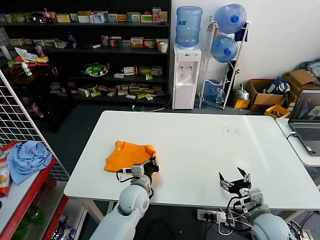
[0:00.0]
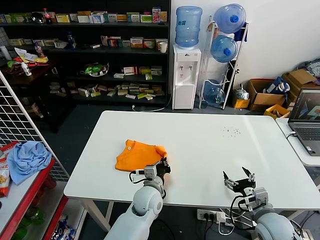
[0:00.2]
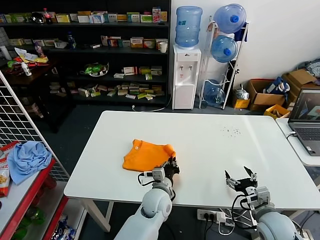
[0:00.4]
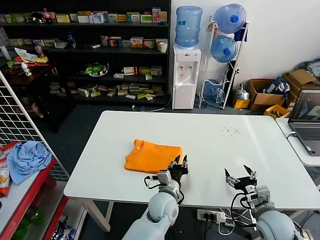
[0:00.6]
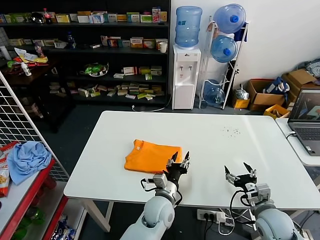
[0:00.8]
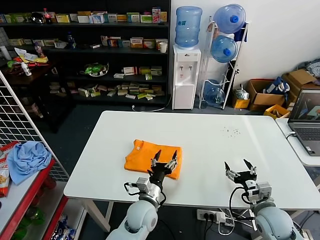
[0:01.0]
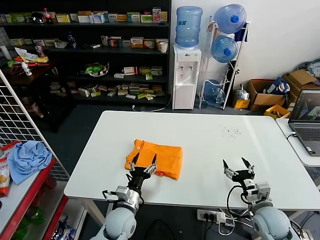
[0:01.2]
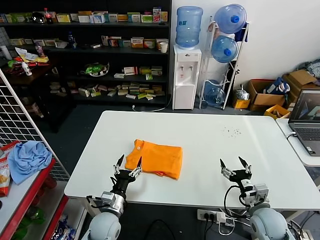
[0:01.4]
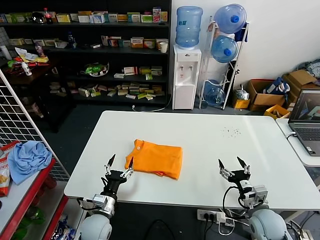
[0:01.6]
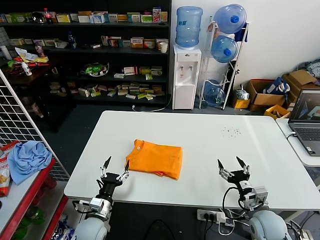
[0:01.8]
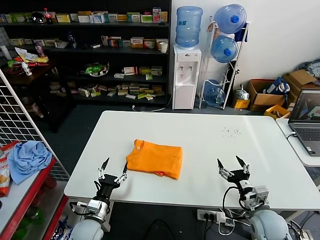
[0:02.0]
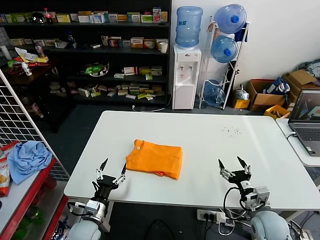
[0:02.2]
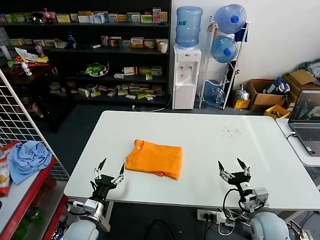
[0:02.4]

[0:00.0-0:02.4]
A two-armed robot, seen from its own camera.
Task of the whole recording: fold and organize the clothes.
0:00.0 to 0:01.2: The left gripper goes roughly 5 cm backward, travels to the right and back again, approximately 10 cm each way, and opens.
0:01.2 to 0:02.4: The left gripper travels to the left by some 15 cm.

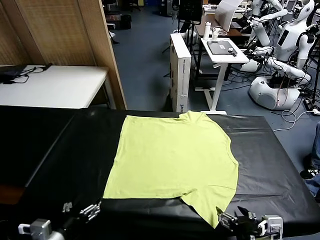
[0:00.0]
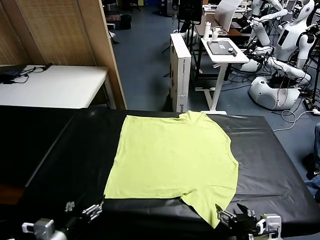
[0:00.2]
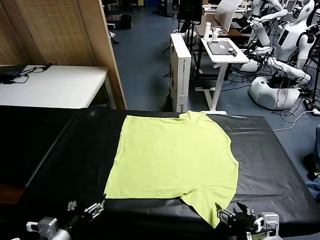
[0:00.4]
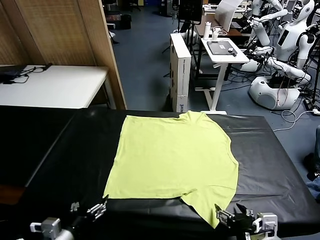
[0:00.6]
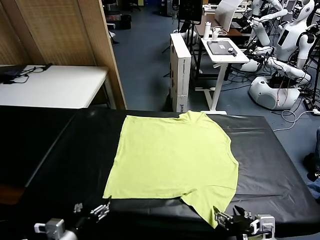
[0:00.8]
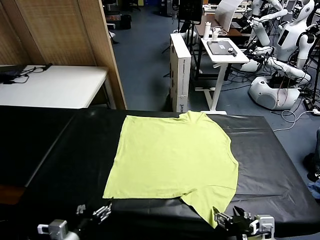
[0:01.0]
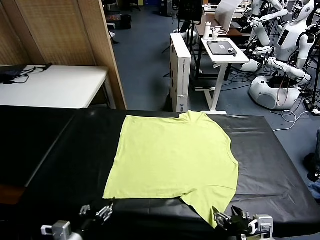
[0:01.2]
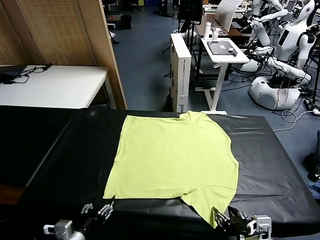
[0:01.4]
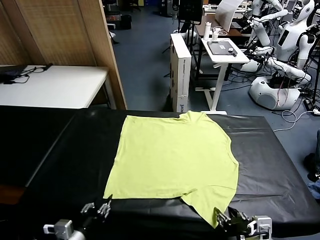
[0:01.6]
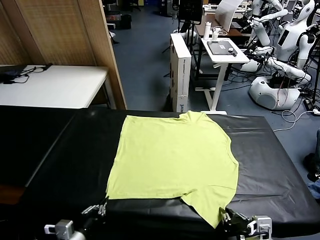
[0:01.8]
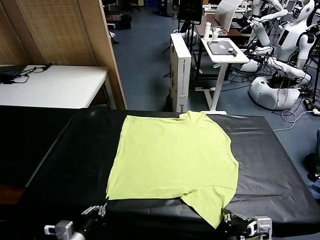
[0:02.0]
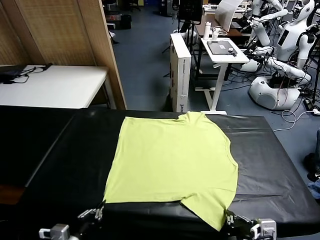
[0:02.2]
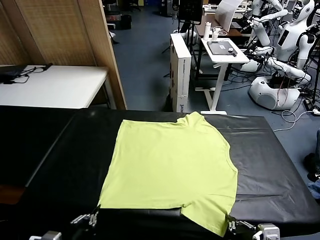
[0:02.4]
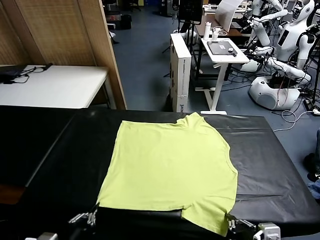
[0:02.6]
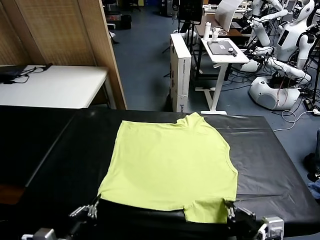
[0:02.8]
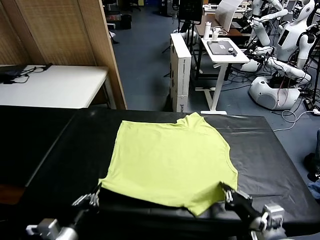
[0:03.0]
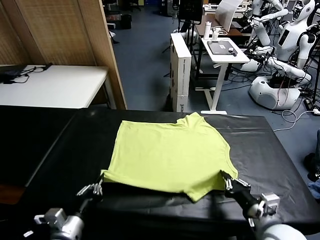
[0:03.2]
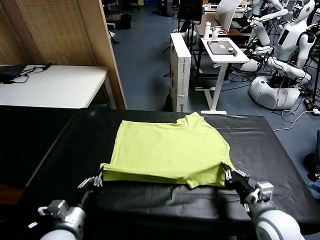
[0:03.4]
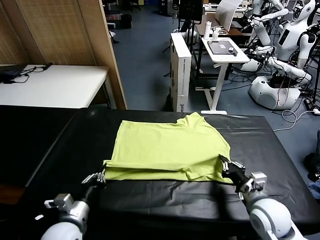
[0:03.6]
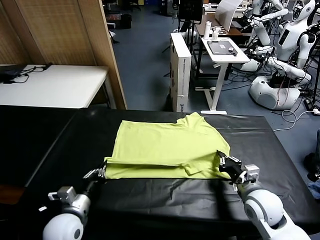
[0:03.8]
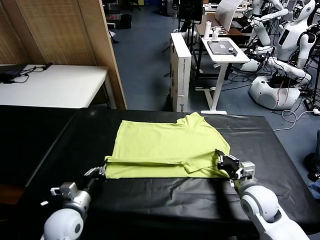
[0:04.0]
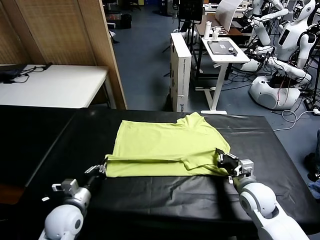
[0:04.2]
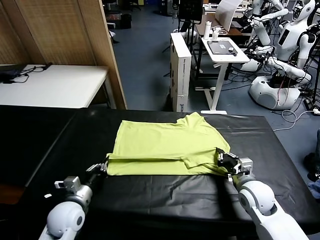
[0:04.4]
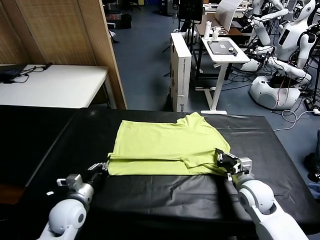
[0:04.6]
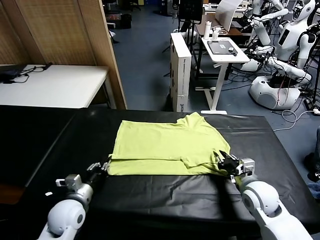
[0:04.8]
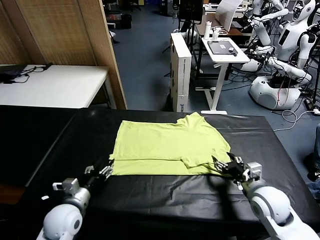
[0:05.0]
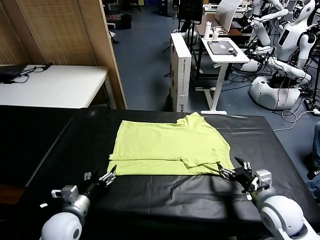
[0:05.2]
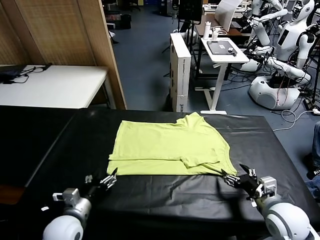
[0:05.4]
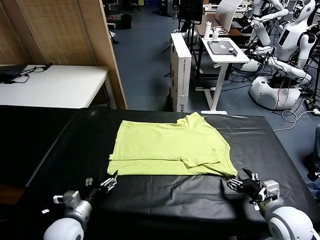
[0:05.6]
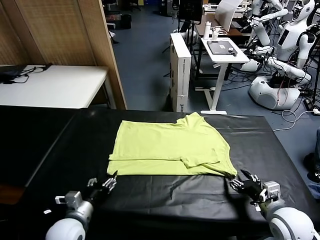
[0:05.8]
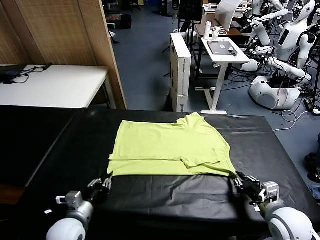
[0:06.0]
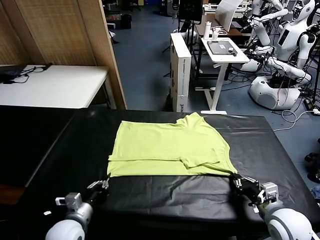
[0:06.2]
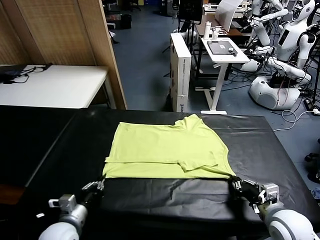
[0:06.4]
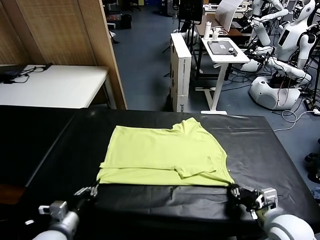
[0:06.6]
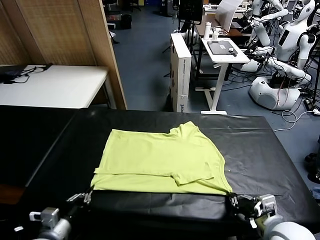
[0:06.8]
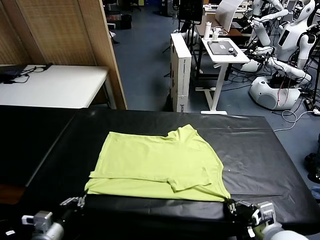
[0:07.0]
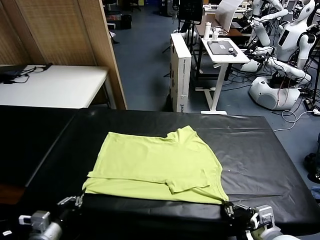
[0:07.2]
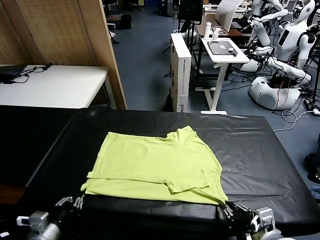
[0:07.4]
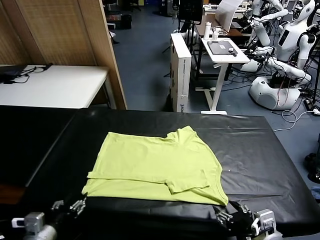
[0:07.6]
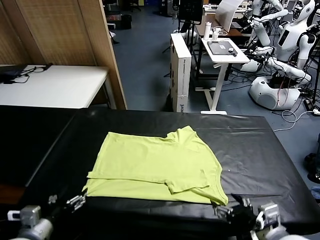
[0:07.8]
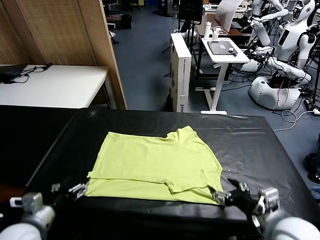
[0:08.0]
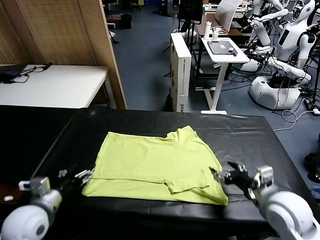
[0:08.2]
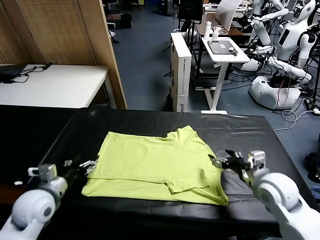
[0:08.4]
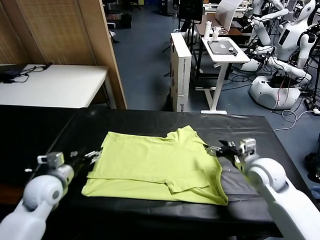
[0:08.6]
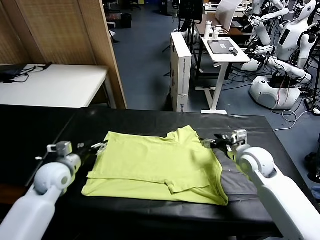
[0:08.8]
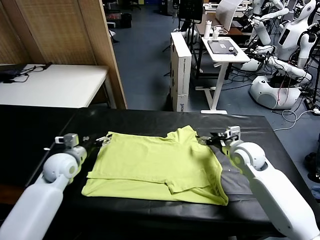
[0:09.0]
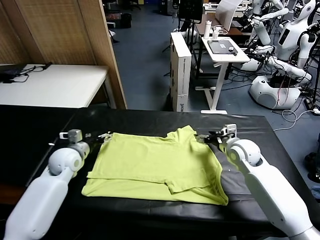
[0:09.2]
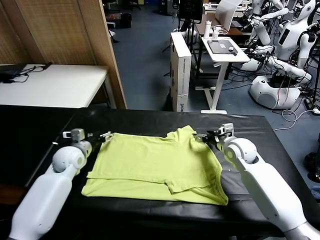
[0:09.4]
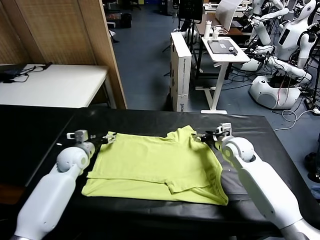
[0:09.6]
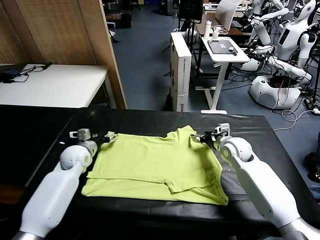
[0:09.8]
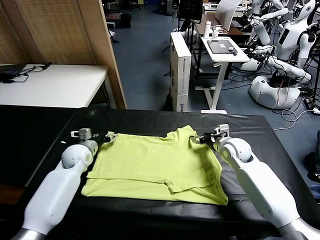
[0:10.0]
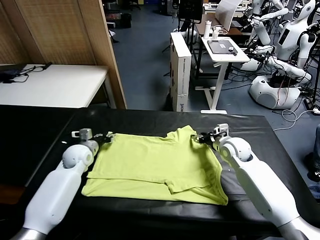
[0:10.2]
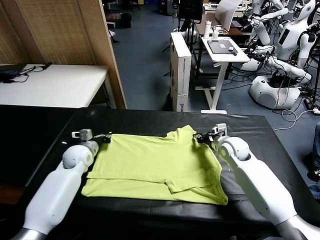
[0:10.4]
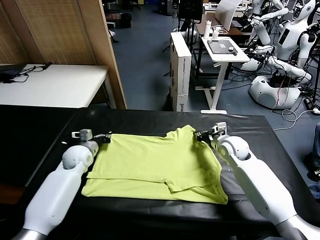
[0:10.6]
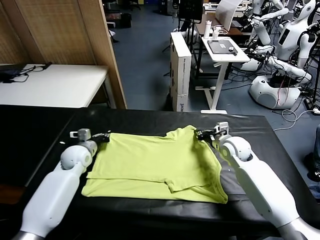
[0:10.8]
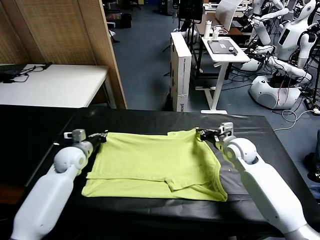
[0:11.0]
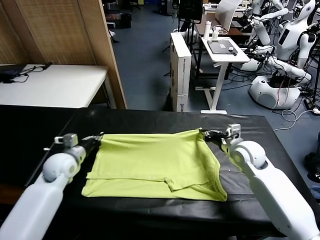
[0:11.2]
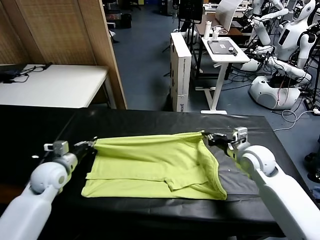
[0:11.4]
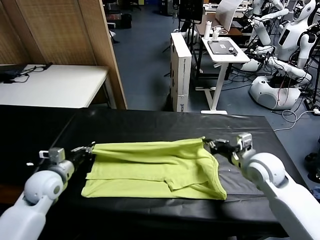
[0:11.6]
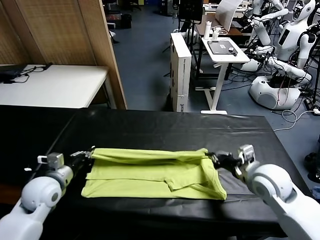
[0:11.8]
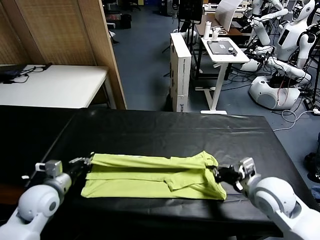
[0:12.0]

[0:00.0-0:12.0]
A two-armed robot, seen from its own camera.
Task of the whole recording: fold and organize the clothes.
Step, 0:00.0 to 0:02.2: use both grippers simultaneously to clamp the lower edge of the clothing fabric.
Step, 0:02.4 to 0:05.0: use both grippers to drag the lower edge of the fabric forward and fold it over the upper edge.
Step, 0:05.2 to 0:07.6: Drag the clothes downward with both gripper.
Step, 0:07.8 to 0:10.6: use both grippers simultaneously to clamp the upper edge of the clothing fabric.
0:01.6 to 0:03.0: The right gripper shifts about 10 cm forward.
0:03.0 to 0:04.4: The two grippers go approximately 10 cm forward.
0:04.4 to 0:06.0: The right gripper is displaced backward by about 10 cm, and opens and closes again. Meanwhile the left gripper moves backward, approximately 5 cm, and opens, then closes again.
0:06.0 to 0:07.6: The grippers both shift upward, to the left and backward by about 10 cm. The right gripper opens up. The left gripper opens up.
0:07.6 to 0:09.0: Both grippers travel together forward, roughly 30 cm.
0:09.0 to 0:10.4: The right gripper closes up. Meanwhile the left gripper moves some 5 cm, and closes up.
0:10.4 to 0:12.0: Both grippers move backward, approximately 20 cm.

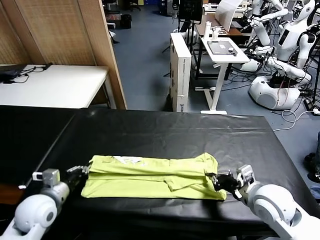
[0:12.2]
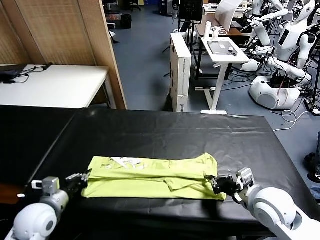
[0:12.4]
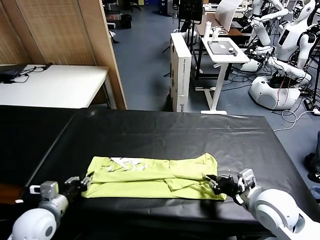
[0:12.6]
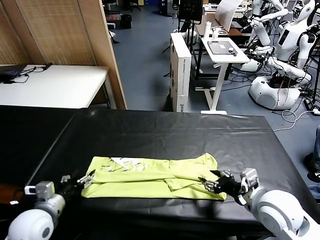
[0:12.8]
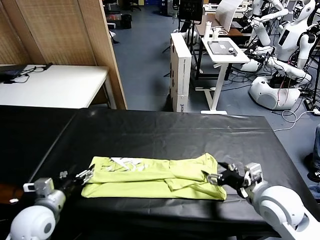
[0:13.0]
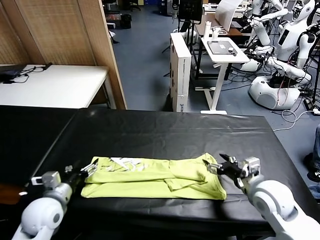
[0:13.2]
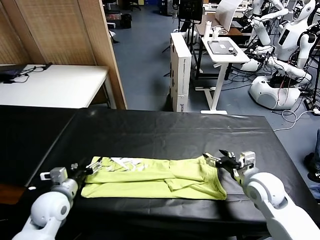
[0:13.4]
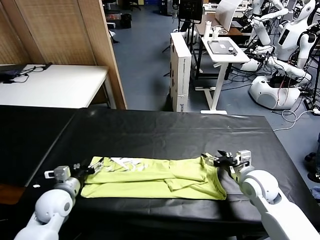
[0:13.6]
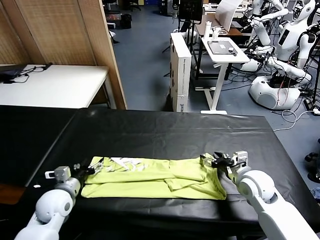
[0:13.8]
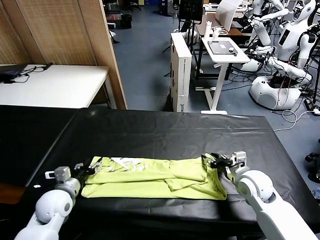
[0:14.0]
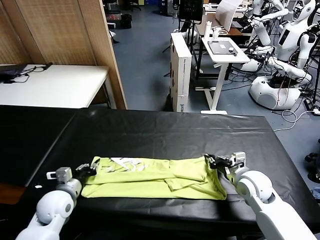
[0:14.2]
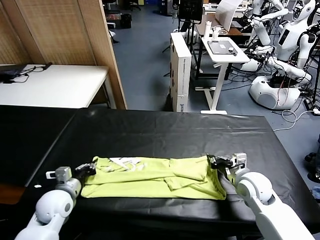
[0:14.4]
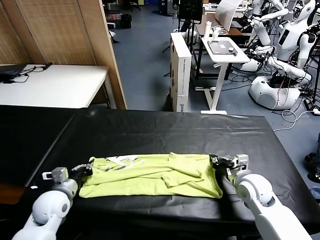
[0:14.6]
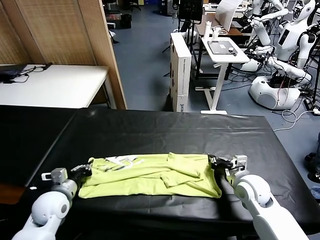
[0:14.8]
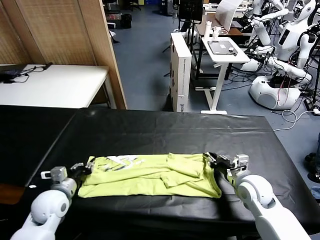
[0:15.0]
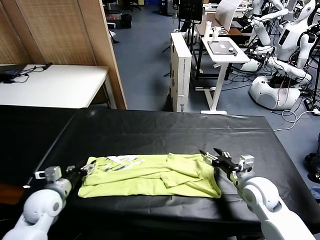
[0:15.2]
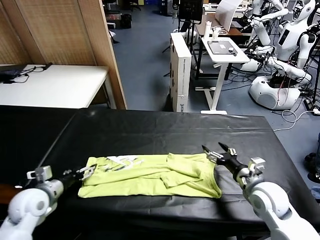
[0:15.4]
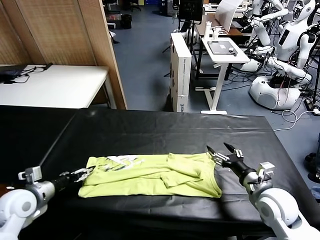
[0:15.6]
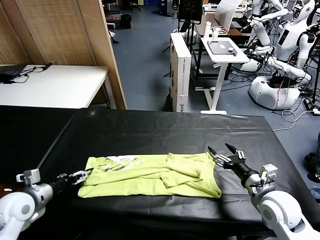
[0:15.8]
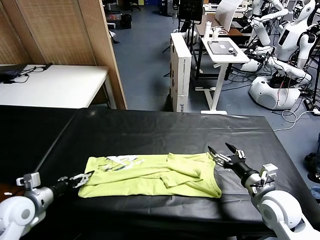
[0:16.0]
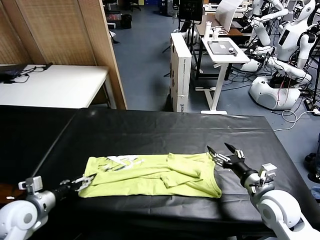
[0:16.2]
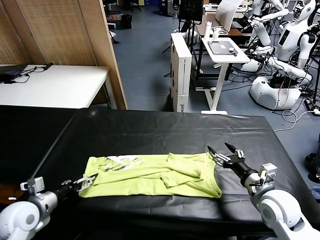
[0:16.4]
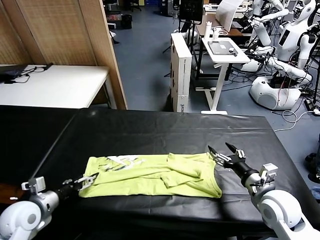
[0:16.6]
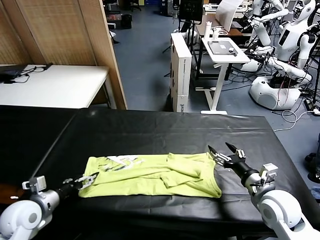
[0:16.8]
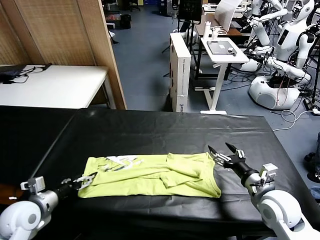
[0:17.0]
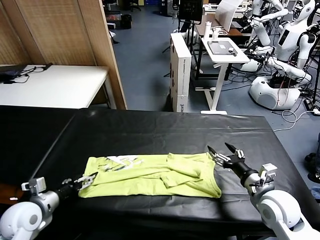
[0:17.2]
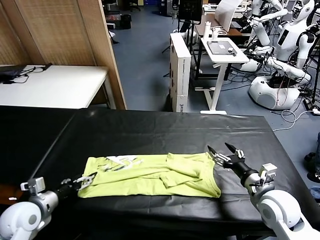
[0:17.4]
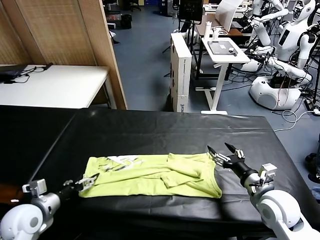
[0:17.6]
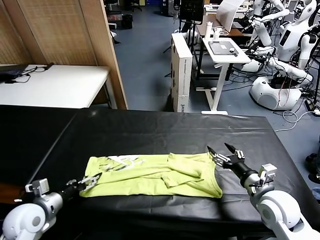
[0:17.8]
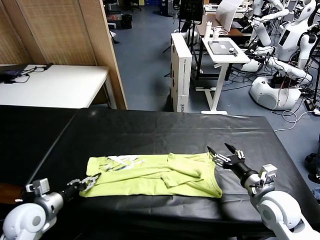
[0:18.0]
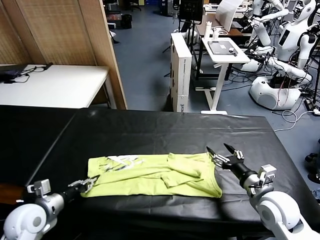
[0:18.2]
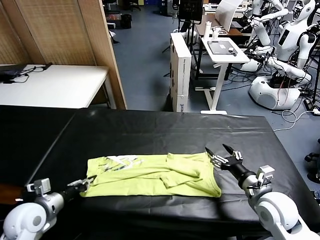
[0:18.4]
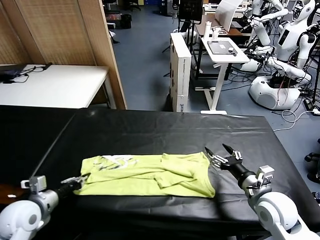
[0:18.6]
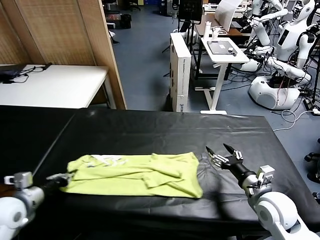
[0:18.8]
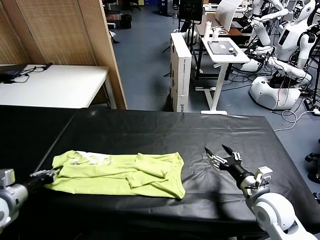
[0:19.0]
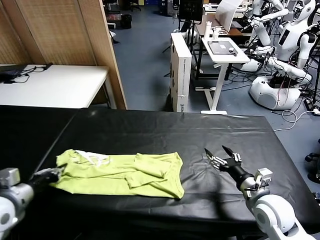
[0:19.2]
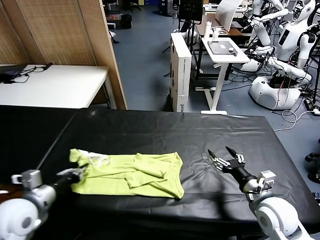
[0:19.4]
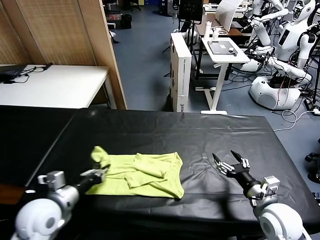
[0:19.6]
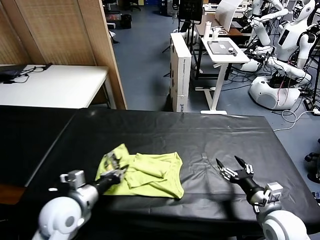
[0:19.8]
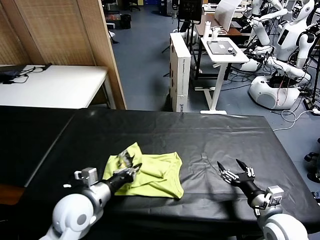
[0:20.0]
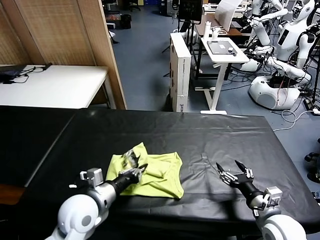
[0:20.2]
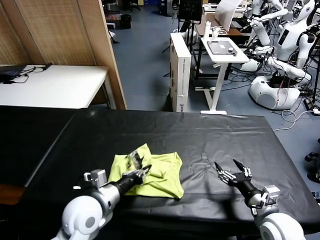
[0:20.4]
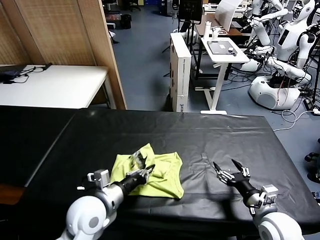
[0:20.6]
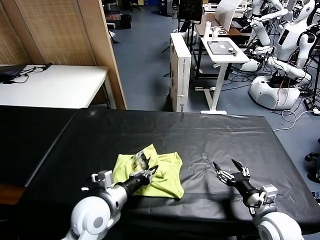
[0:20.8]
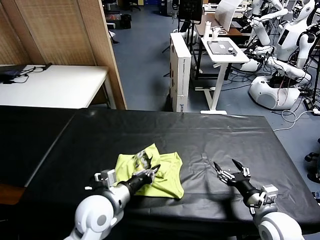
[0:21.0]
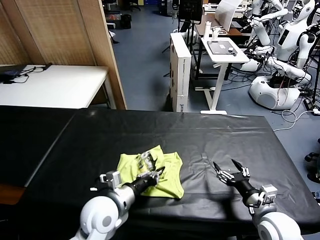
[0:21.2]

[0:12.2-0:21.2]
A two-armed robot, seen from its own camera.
Task of the whole recording: fold and organize the clothes.
Step, 0:13.0 to 0:18.4: use the left gripper to clamp the left edge of the fabric.
0:12.2 to 0:13.8: The left gripper travels forward by roughly 5 cm, and opens; the right gripper is displaced forward and downward by approximately 10 cm, and opens.
0:13.8 to 0:15.2: The right gripper moves backward, some 5 cm, and opens its fingers, while the left gripper goes approximately 5 cm to the left, and closes and opens again.
0:15.2 to 0:16.6: The grippers make only small movements.
0:16.6 to 0:18.2: The left gripper closes its fingers.
0:18.2 to 0:19.8: The right gripper is displaced backward by roughly 5 cm. Meanwhile the left gripper heads to the right, covering some 15 cm.
0:19.8 to 0:21.2: The left gripper travels to the right by about 5 cm.
